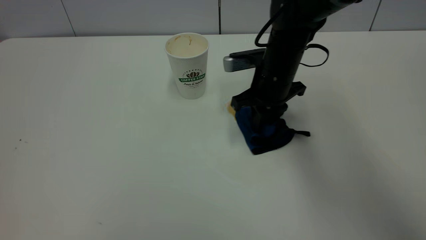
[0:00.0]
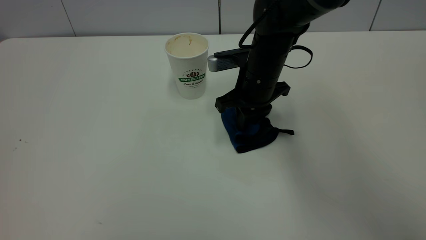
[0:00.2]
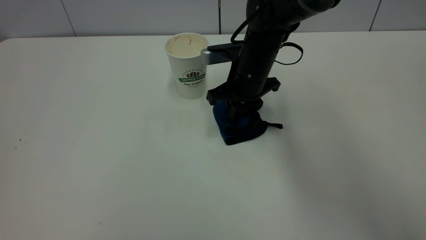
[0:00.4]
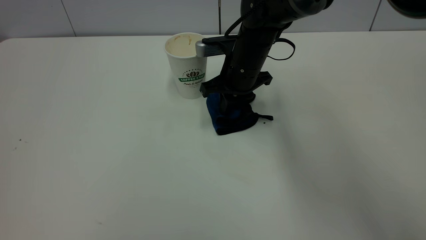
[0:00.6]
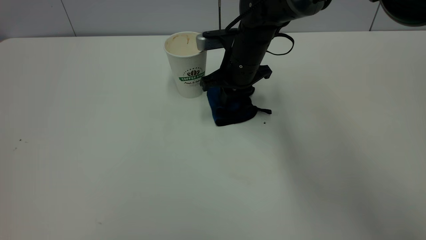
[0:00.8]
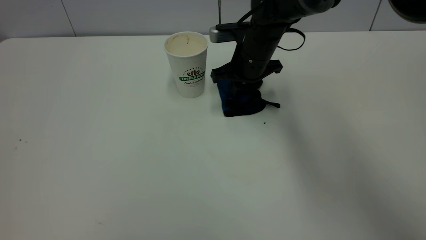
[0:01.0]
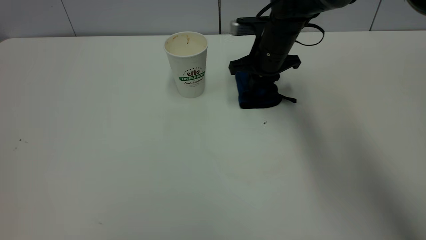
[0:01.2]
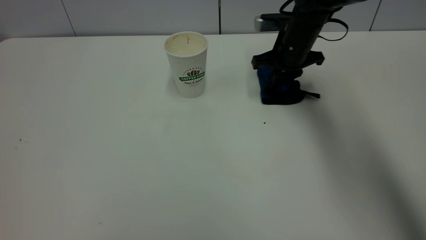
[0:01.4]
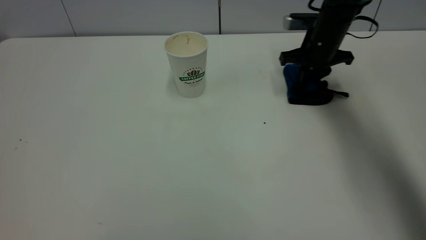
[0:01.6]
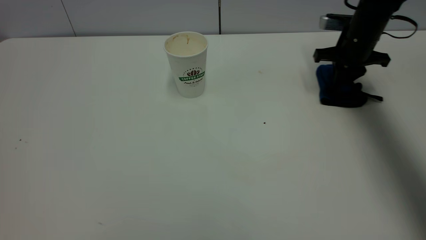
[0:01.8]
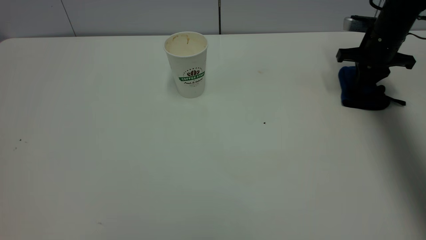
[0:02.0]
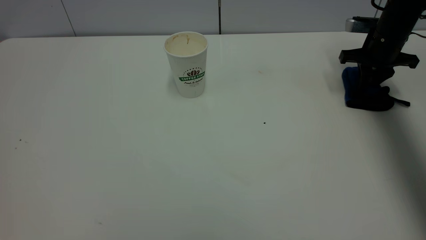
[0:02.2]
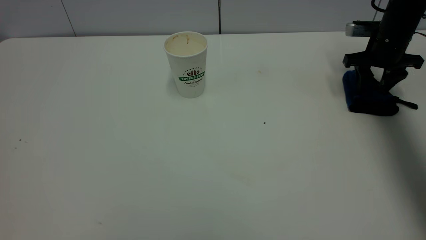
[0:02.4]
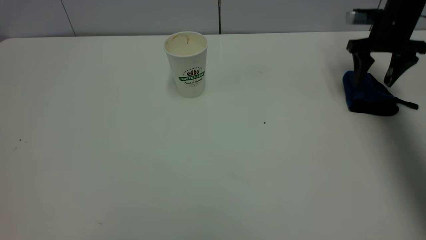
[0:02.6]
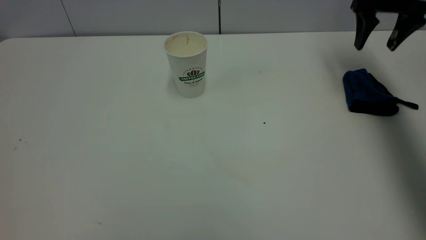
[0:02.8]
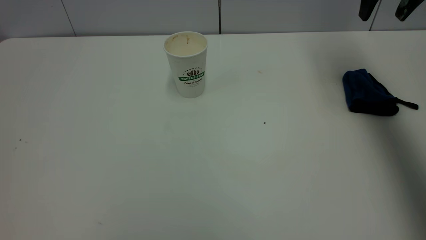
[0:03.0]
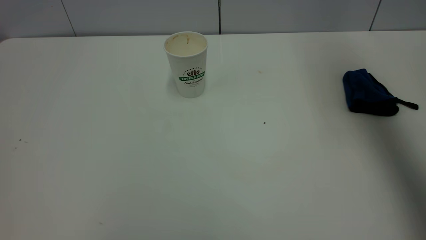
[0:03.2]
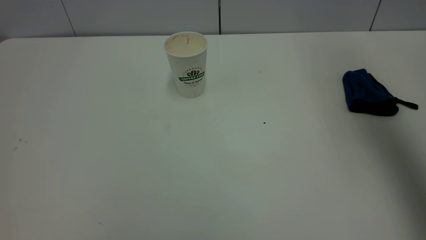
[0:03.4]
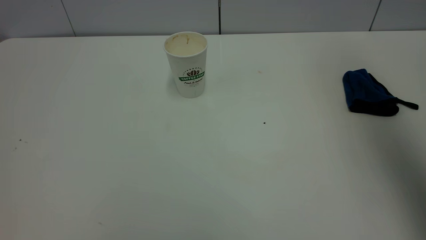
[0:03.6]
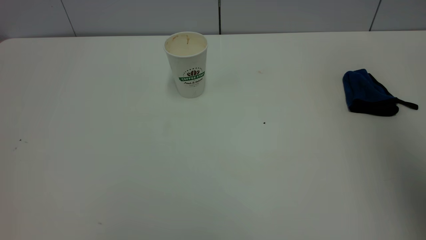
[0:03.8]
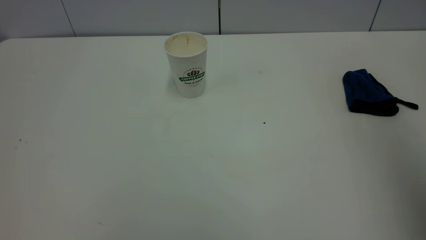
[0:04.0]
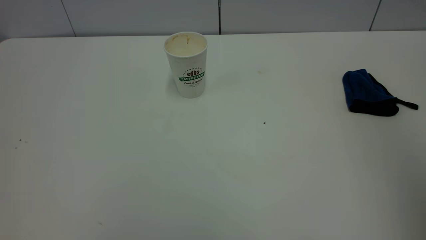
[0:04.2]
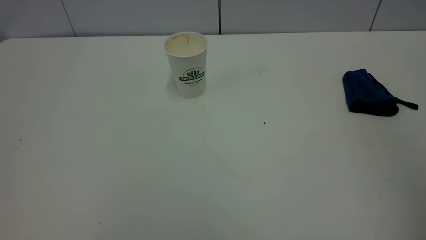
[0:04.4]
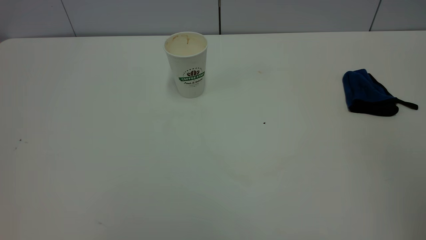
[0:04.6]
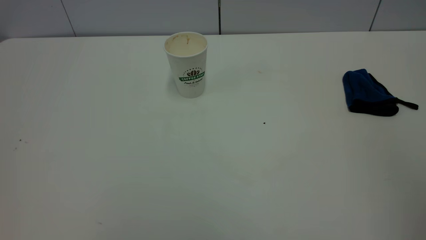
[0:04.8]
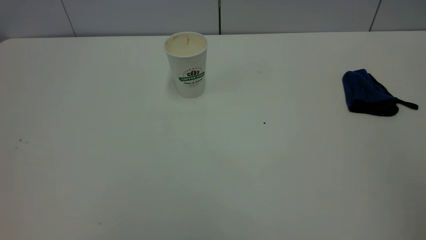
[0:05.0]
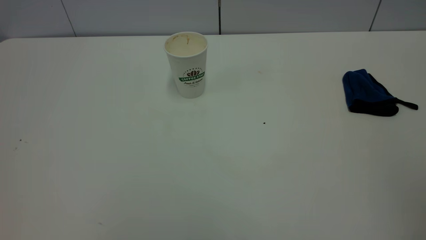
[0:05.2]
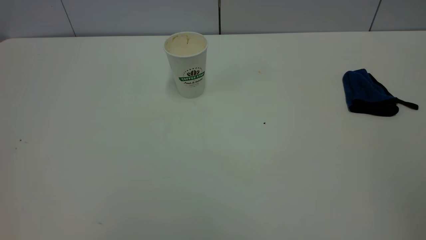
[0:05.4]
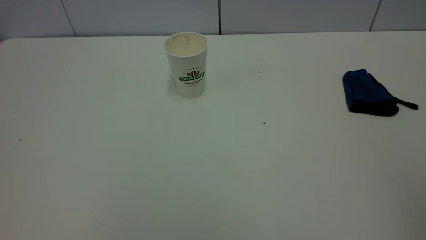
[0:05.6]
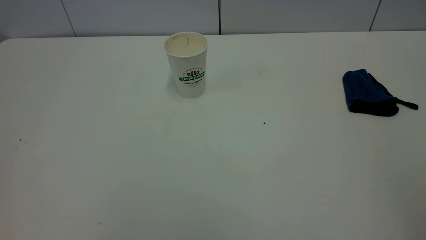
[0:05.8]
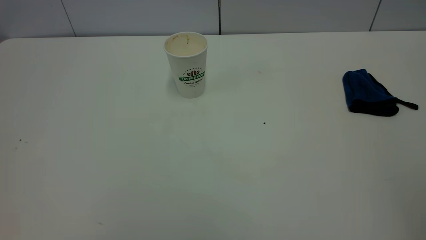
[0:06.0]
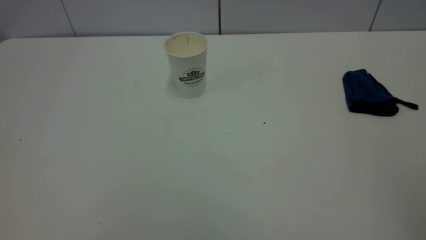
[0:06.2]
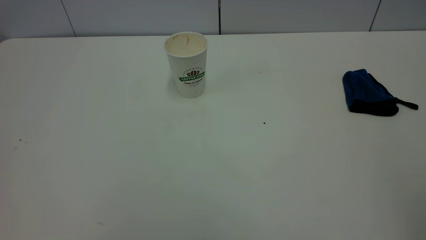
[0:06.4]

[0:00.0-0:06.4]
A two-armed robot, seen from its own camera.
Task of the whole recording: the left gripper pick up the fallen cup and place it upright, the right gripper grasp the blue rag and wipe the tea stain on the table, the right gripper put the blue rag back in its original position.
Step, 0:00.0 to 0:02.8: Wipe the stains off the table with a rag.
0:00.0 to 0:01.6: The right gripper is displaced to the right and forward by approximately 15 cm.
0:01.6 to 0:03.2: The right gripper shifts roughly 30 cm upward and backward, and opens up.
0:03.2 to 0:04.8: The right gripper goes approximately 35 cm backward, and closes.
